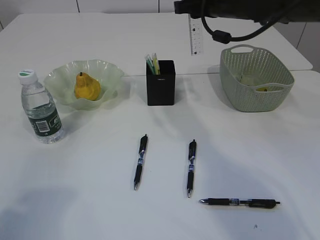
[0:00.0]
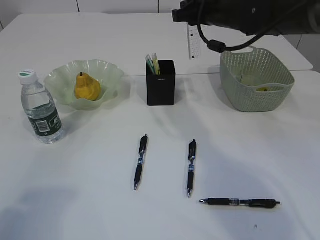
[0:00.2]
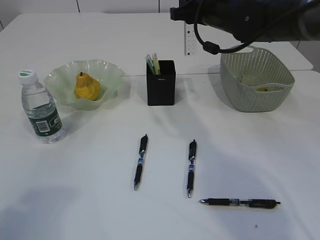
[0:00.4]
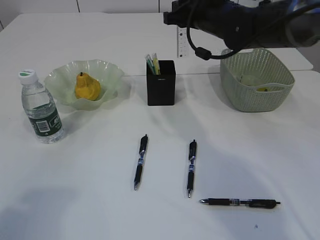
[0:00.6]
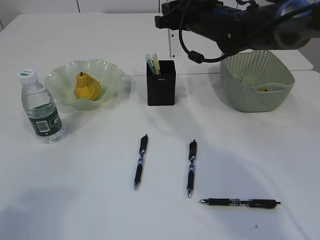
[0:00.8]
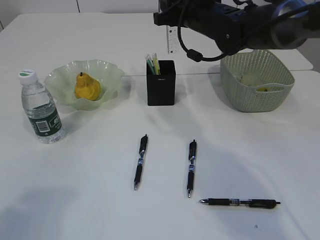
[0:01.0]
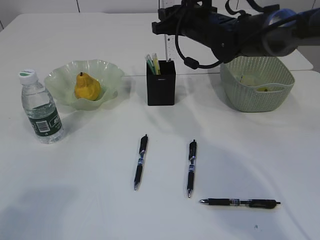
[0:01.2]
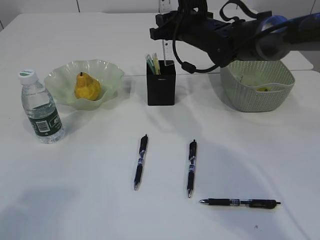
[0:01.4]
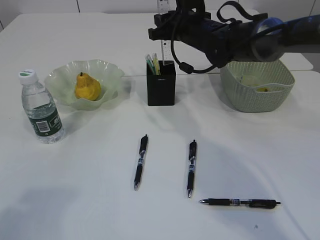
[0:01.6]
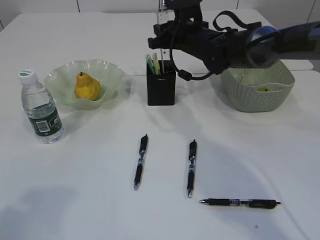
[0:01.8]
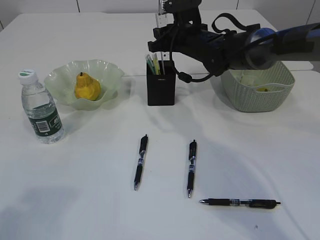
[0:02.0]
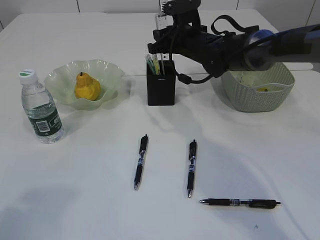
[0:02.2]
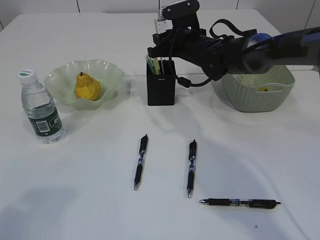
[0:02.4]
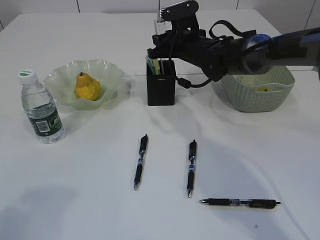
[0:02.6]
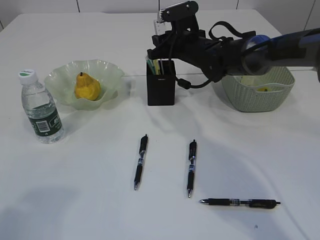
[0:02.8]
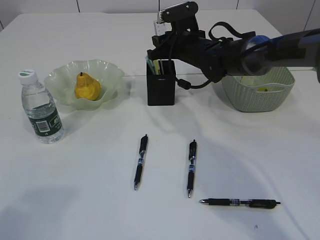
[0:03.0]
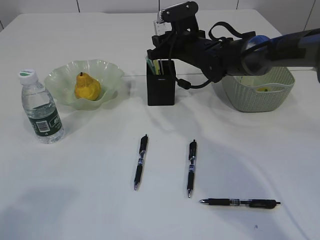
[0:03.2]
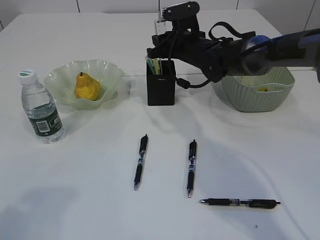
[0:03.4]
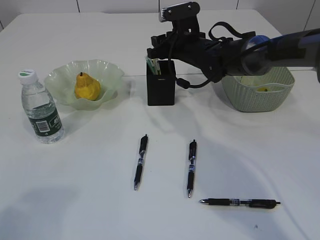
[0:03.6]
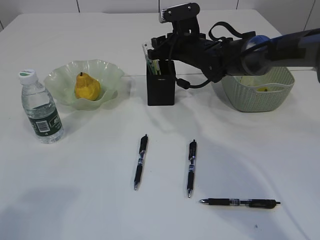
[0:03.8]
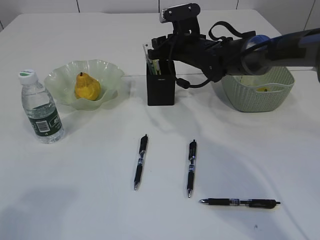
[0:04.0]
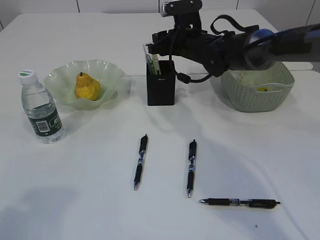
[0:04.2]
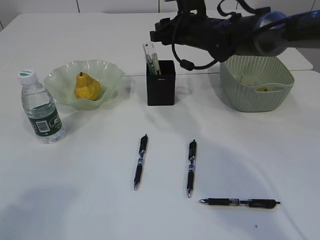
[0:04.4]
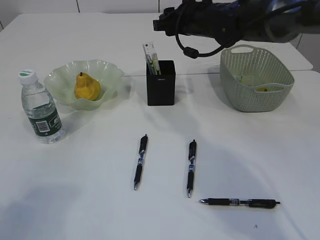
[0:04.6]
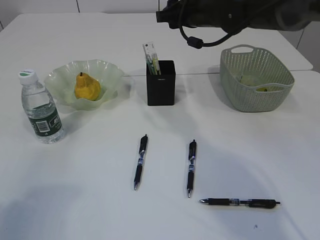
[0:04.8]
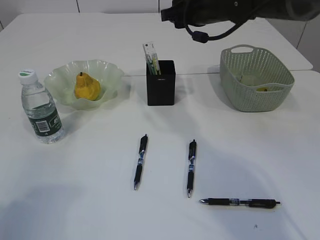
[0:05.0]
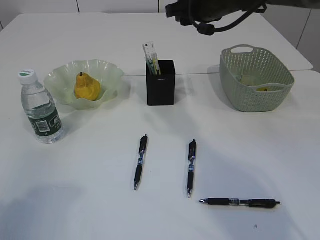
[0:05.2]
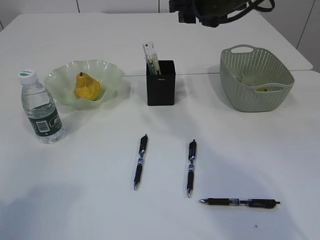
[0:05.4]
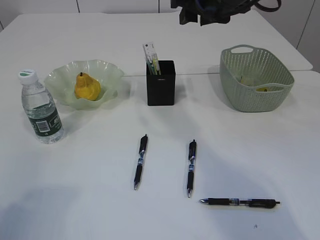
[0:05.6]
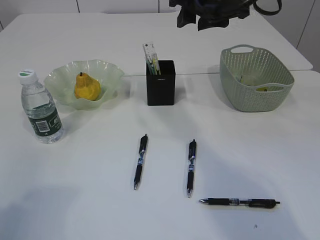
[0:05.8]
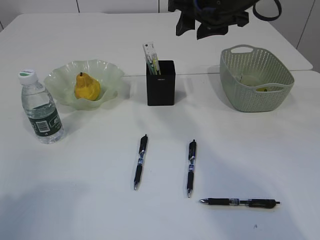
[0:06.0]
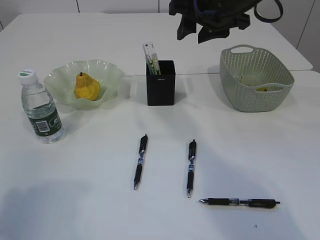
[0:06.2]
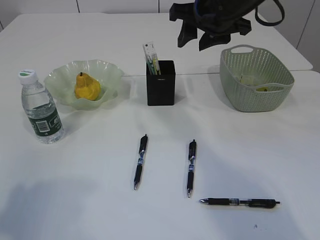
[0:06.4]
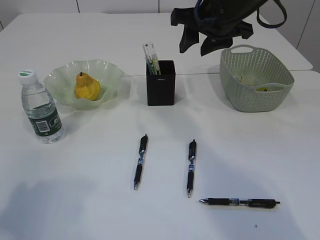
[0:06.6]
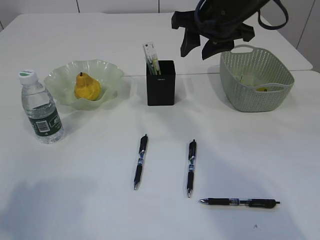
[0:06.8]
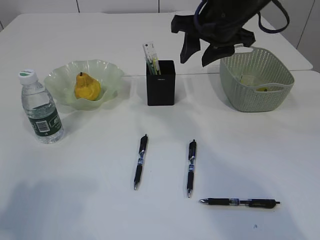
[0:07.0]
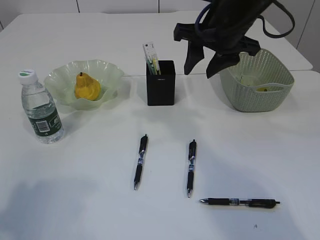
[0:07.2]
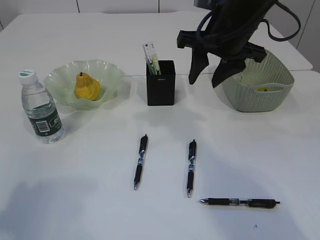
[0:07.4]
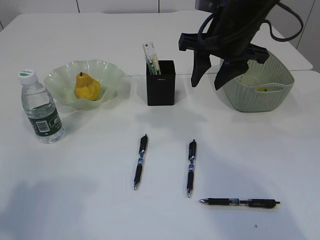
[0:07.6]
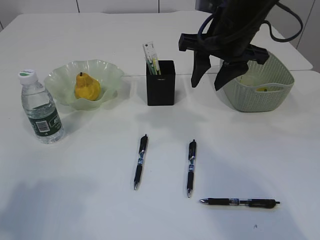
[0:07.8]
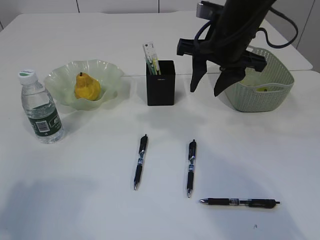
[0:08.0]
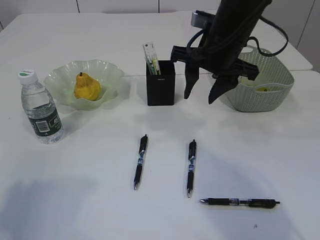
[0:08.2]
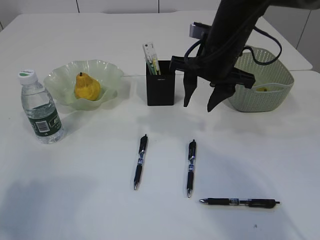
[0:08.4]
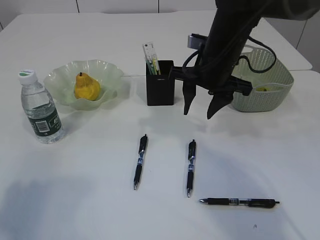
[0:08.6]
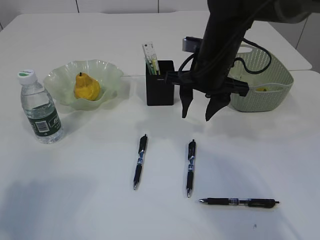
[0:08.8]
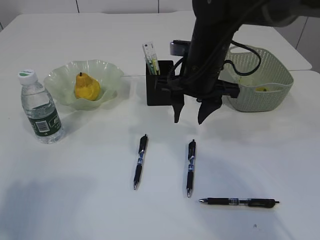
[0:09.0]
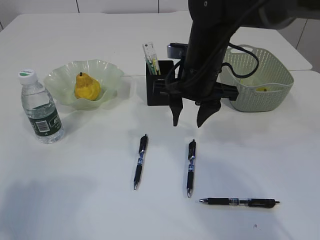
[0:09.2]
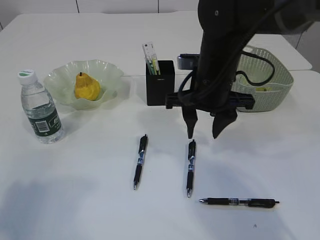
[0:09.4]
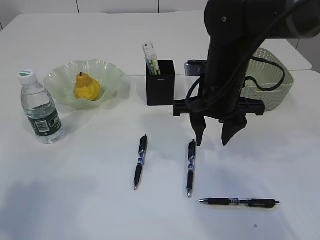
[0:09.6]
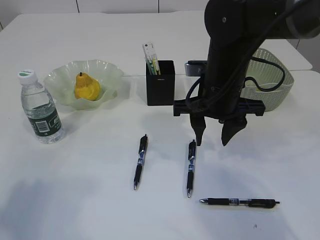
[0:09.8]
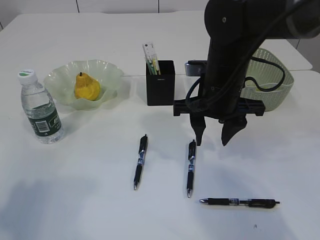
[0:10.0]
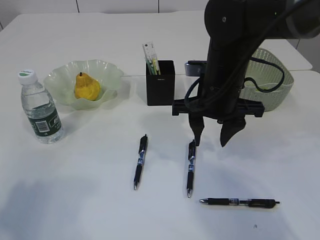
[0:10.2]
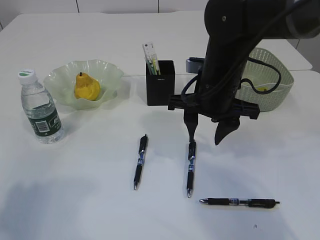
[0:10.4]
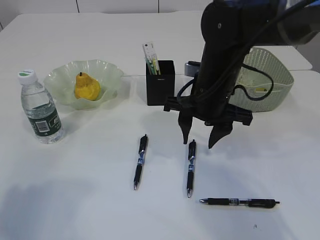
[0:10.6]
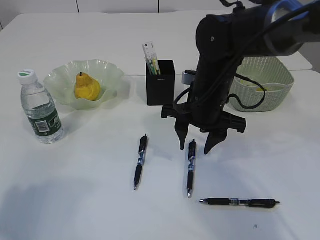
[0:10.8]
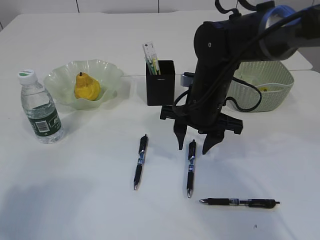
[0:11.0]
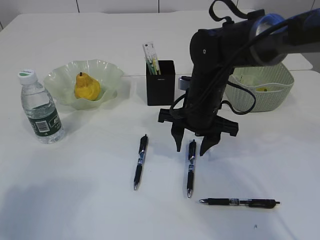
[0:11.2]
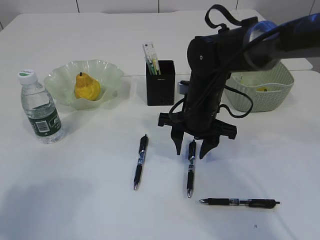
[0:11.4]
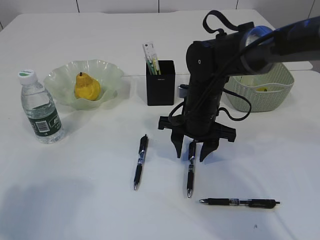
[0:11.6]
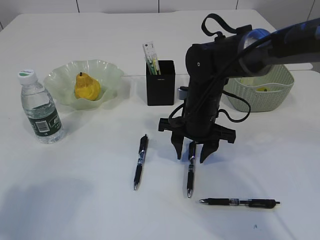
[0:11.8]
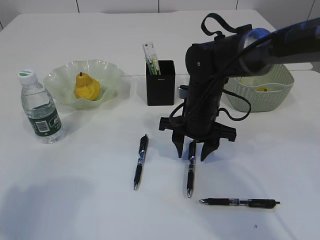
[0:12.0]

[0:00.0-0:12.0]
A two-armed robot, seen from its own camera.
Step, 0:00.0 to 0:04.2: Place the ruler into the pen holder.
0:00.0 to 0:01.6: The right gripper shifts approximately 10 cm downward and forward.
0:01.6 to 0:04.4: The grippers make only small movements.
0:04.4 to 0:06.0: The right gripper goes about 15 cm upward and backward.
0:07.6 to 0:09.0: The right gripper travels downward by about 5 cm.
0:09.0 to 0:10.4: The grippers stay close to where they were, moving slightly.
0:10.4 to 0:12.0: The right gripper goes approximately 10 cm downward.

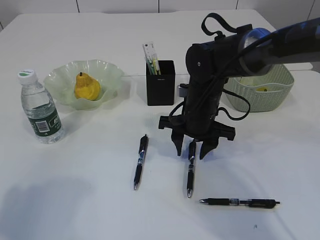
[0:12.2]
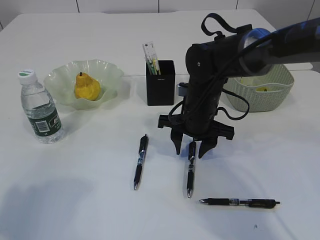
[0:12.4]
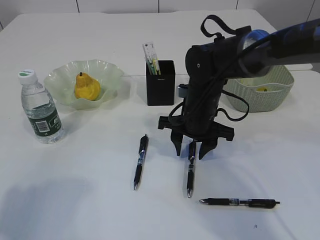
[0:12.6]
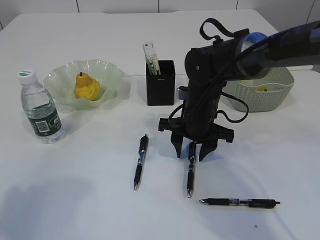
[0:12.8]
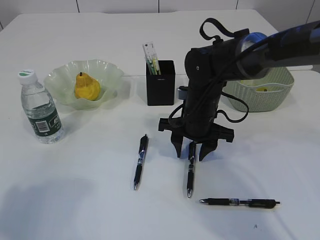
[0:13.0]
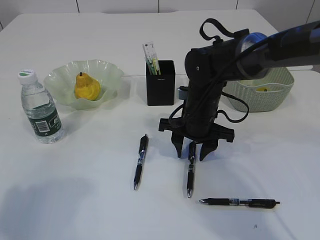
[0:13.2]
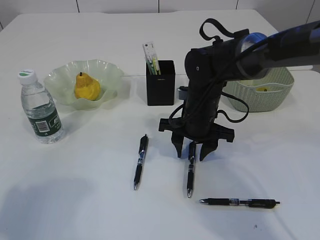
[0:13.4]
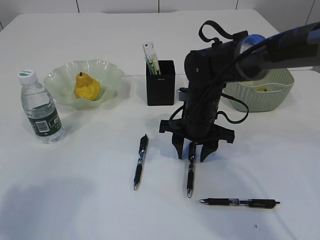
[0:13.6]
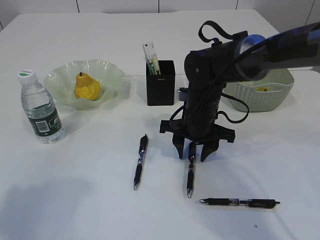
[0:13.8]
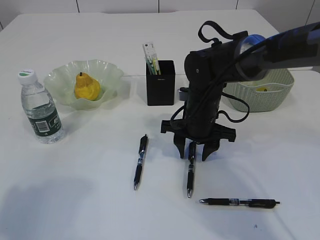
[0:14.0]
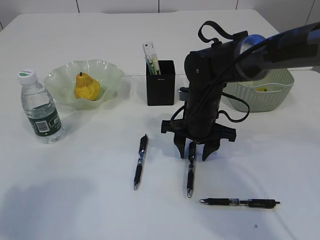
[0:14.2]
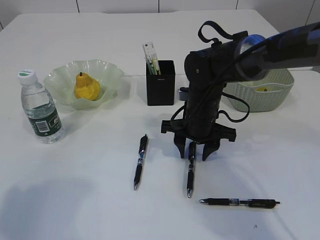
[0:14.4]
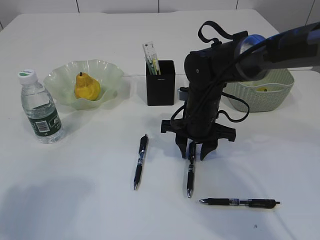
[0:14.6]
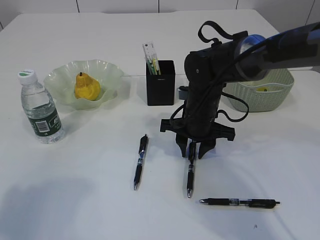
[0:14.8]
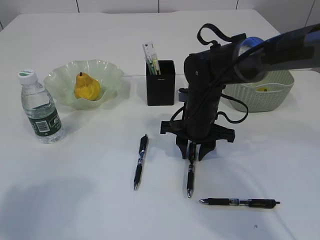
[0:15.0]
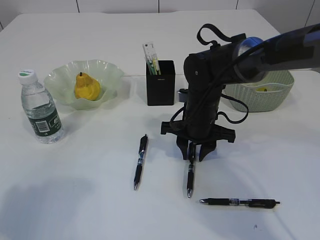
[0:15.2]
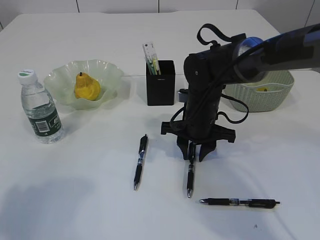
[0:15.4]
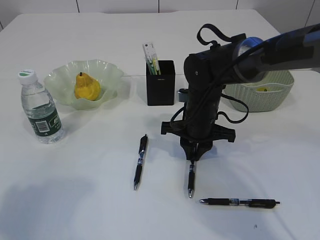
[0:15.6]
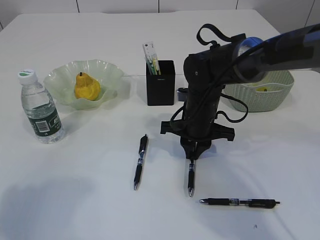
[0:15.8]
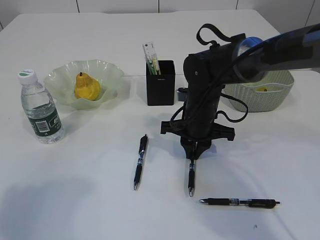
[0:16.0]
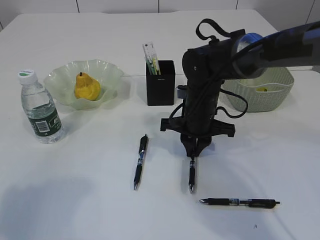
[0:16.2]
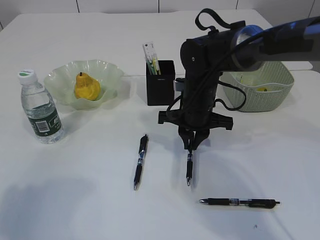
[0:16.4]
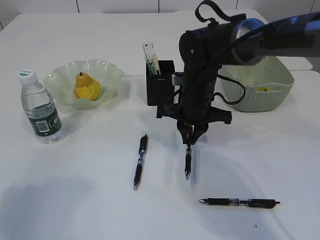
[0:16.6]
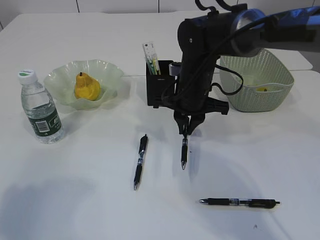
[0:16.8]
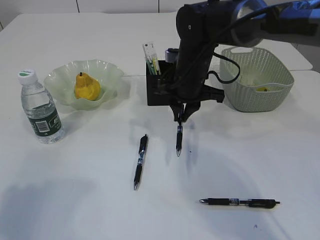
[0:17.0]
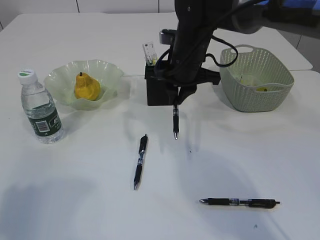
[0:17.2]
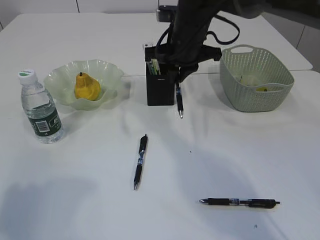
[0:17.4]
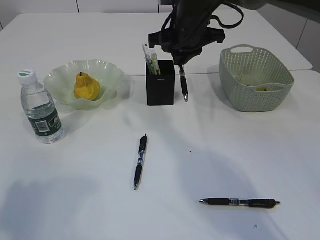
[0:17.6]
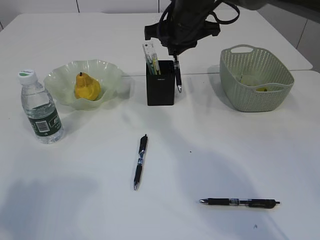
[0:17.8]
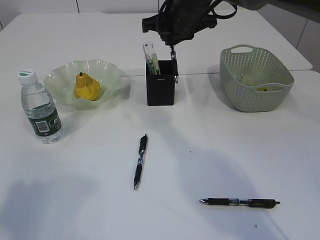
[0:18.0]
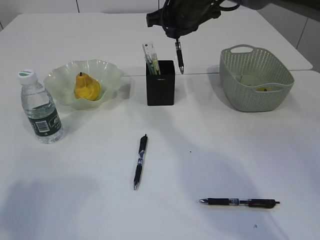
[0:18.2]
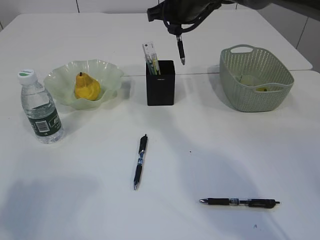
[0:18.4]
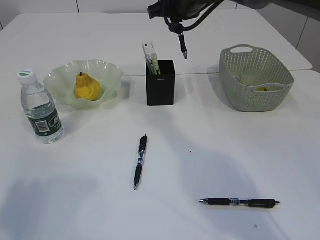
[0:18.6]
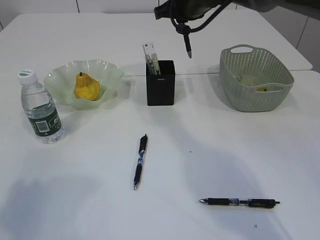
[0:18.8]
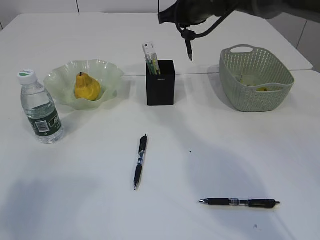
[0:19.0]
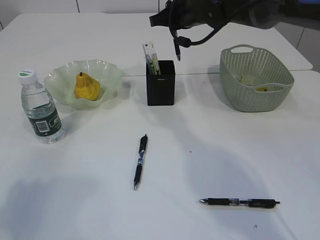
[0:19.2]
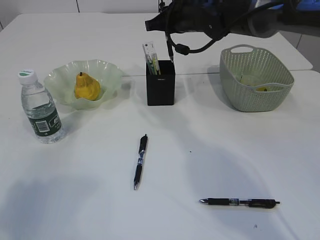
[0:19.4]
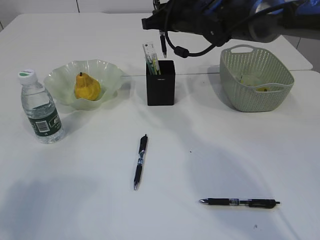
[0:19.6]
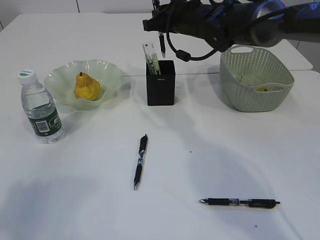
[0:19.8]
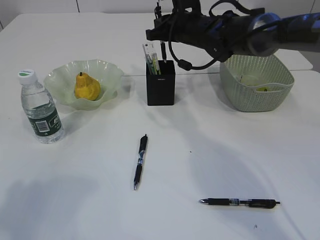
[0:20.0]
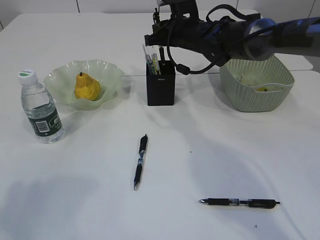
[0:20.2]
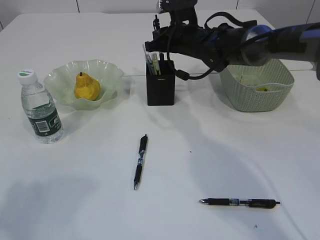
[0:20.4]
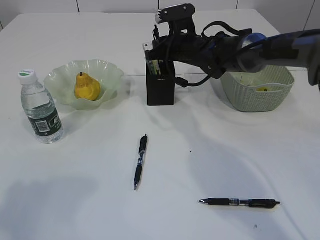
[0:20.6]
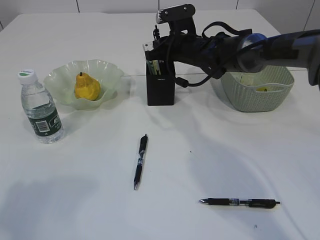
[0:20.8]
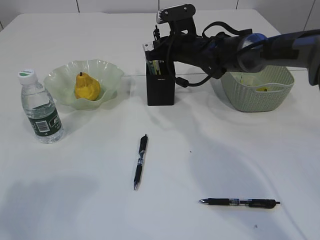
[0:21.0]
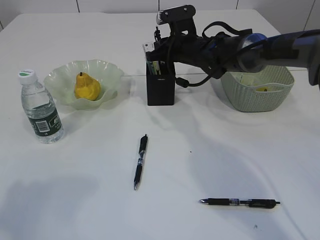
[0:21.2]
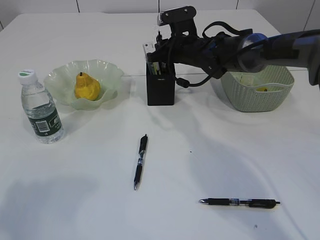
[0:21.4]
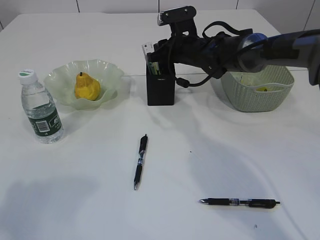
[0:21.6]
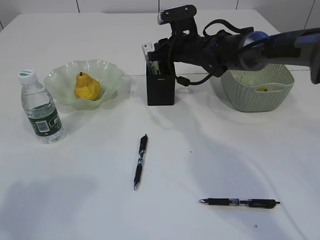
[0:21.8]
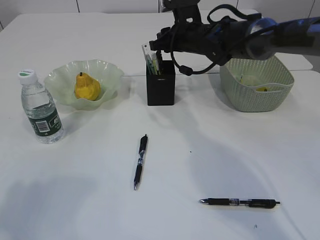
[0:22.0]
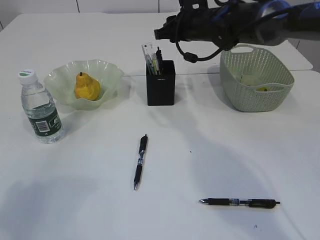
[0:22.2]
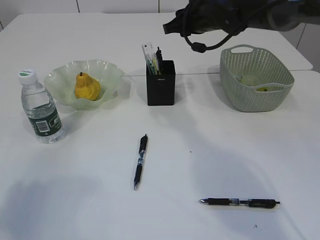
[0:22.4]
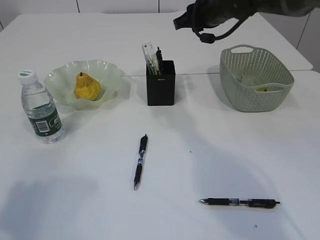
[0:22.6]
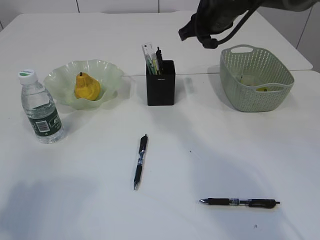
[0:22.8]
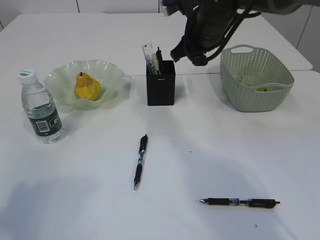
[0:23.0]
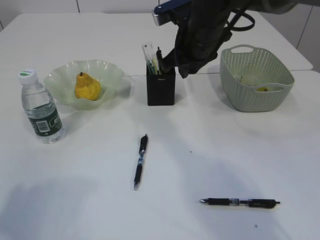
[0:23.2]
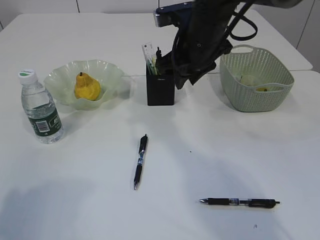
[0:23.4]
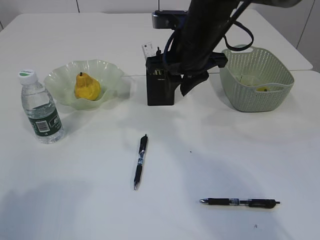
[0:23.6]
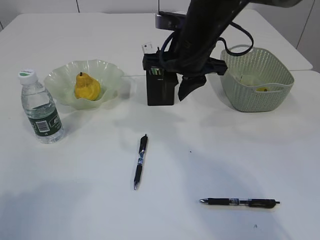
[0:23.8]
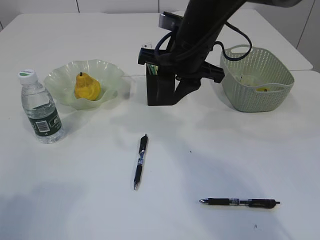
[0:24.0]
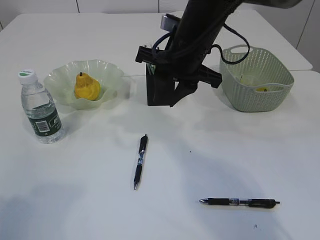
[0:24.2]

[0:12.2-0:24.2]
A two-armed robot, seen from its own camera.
Step, 0:12.2 to 0:16.4: Pick up the pen with right arm.
Step, 0:16.6 to 0:21.8: Place the pen into the pen holder.
0:12.2 to 0:13.8: Both grippers stay about where they are.
0:13.8 to 0:15.2: Both grippers stay about where they are.
0:15.2 to 0:16.6: The right gripper closes.
0:16.6 to 0:18.2: The right gripper goes some 15 cm upward and forward.
0:19.8 to 0:21.2: The right gripper goes approximately 5 cm downward.
0:21.2 to 0:22.6: The right gripper heads upward, covering about 10 cm.
0:22.6 to 0:24.2: The right gripper heads backward and to the left, covering approximately 10 cm.
